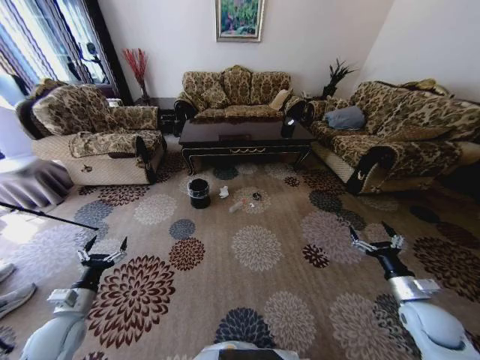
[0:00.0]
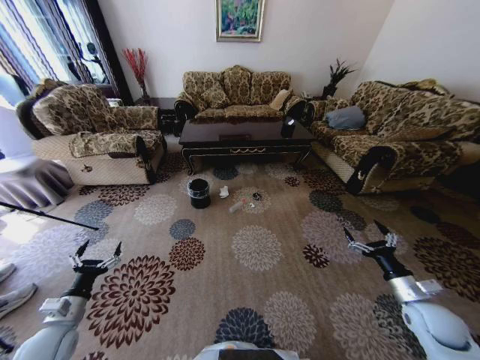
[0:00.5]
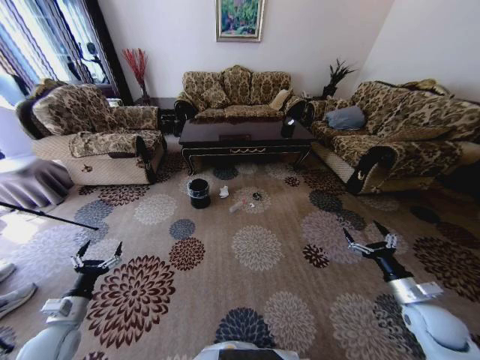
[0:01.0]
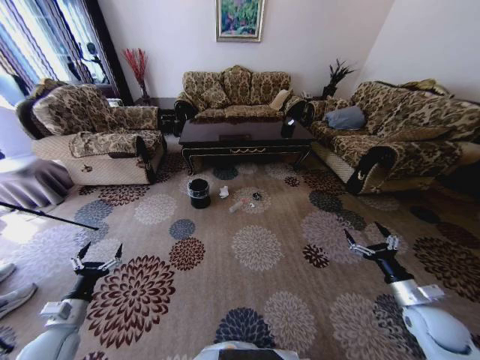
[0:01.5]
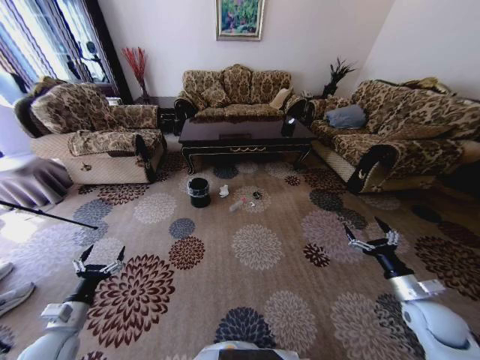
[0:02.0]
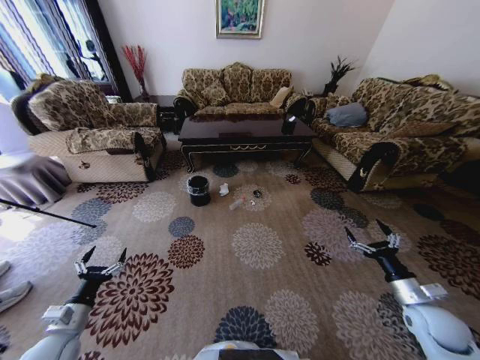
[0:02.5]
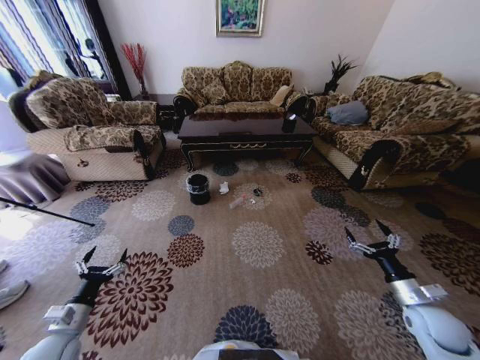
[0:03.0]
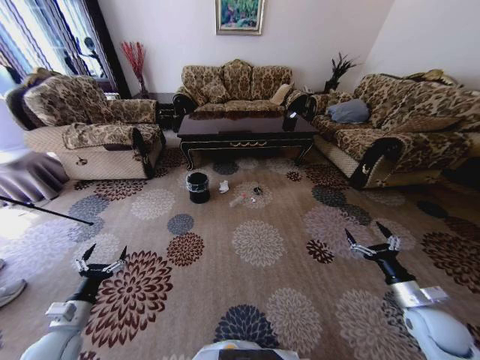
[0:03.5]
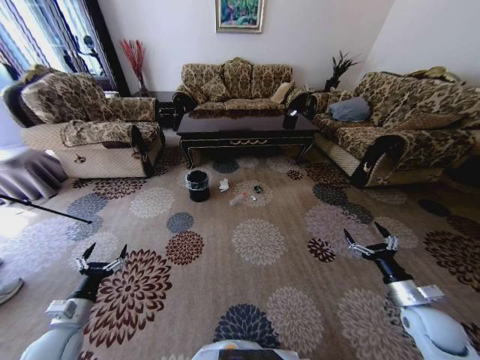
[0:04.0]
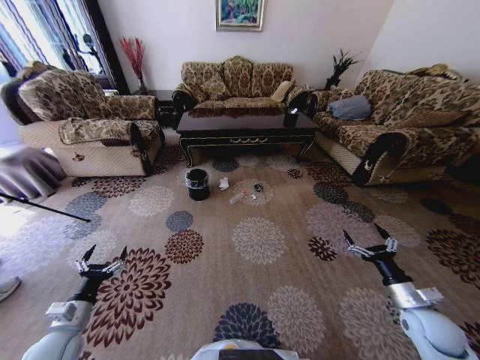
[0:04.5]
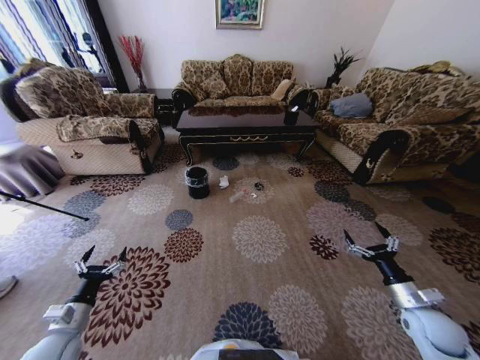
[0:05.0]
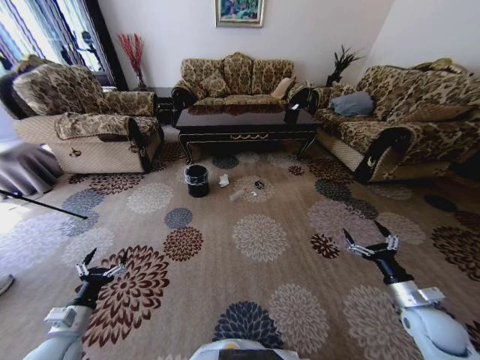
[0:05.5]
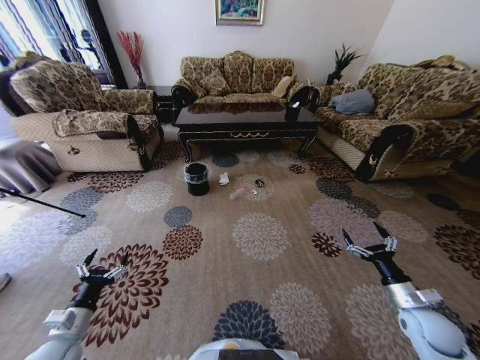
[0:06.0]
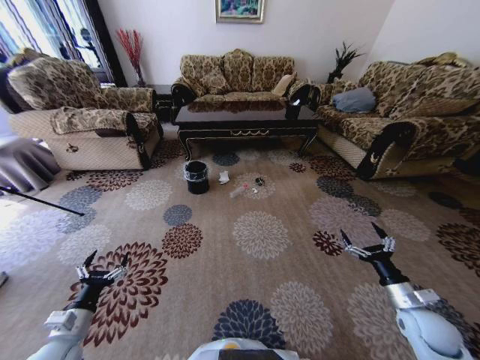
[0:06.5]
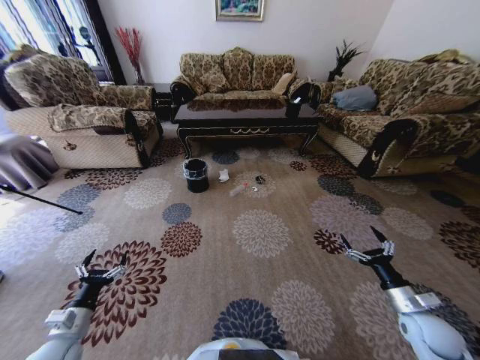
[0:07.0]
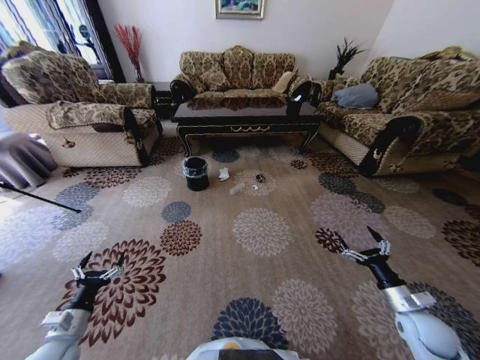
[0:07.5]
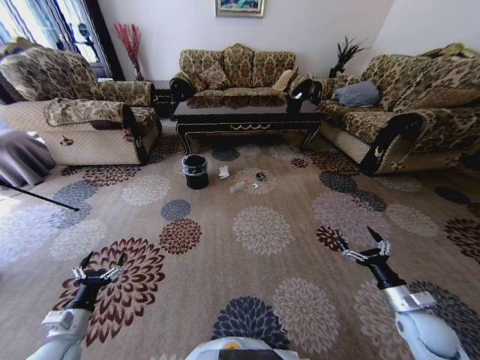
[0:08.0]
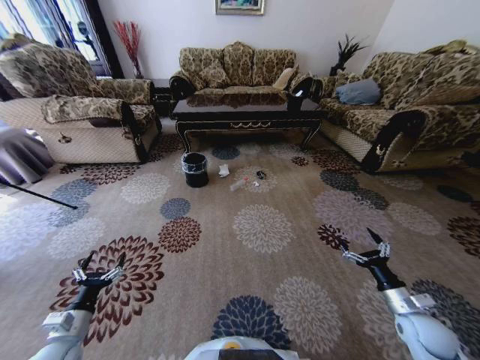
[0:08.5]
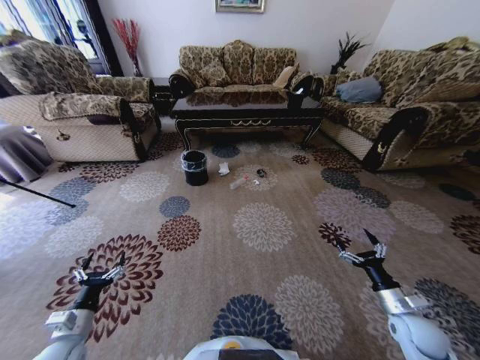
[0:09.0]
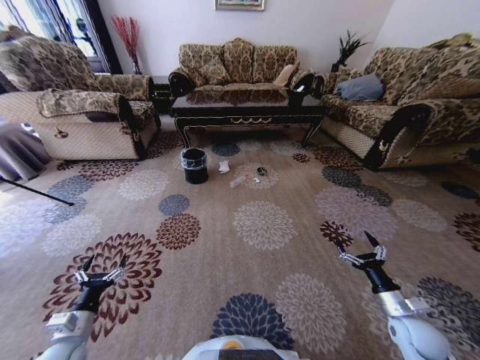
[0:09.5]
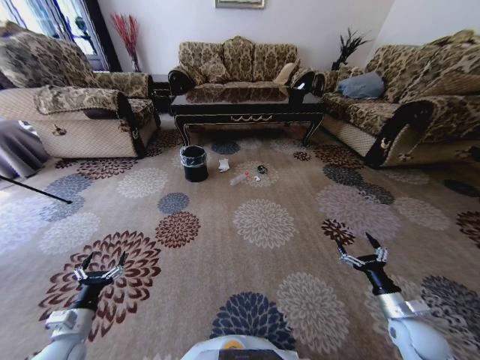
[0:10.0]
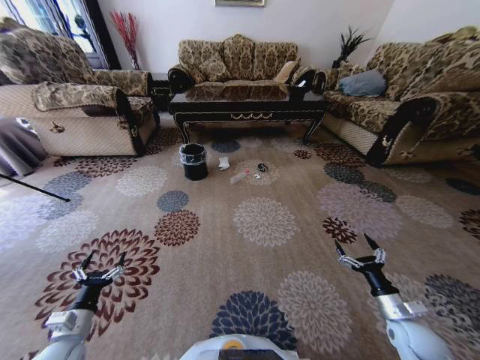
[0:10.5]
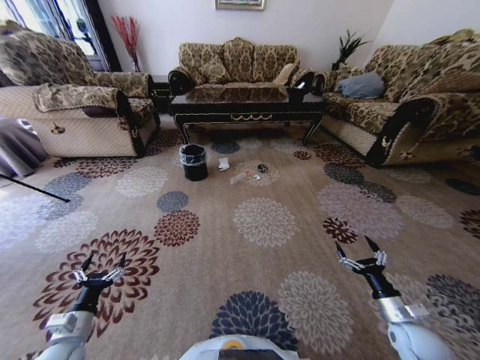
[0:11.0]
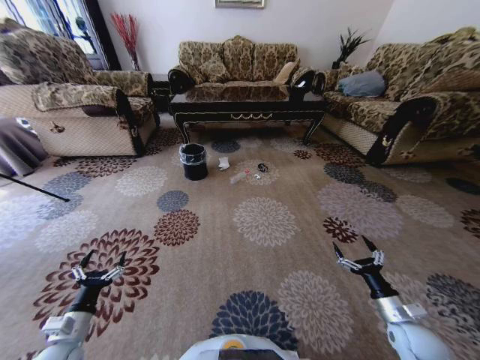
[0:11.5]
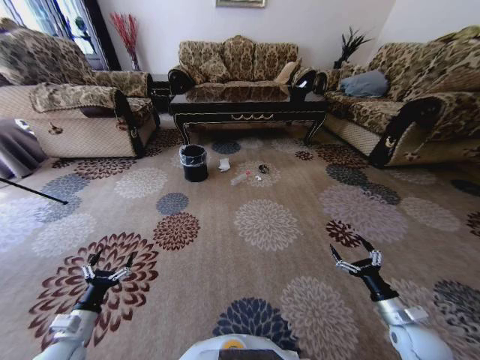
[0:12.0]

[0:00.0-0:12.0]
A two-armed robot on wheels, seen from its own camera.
Task of the whole recording: Move to the front of the table and pick up the trash from the floor, then place it into the trash bin.
0:10.0 to 0:12.0: There are only small adjustments of the grippers.

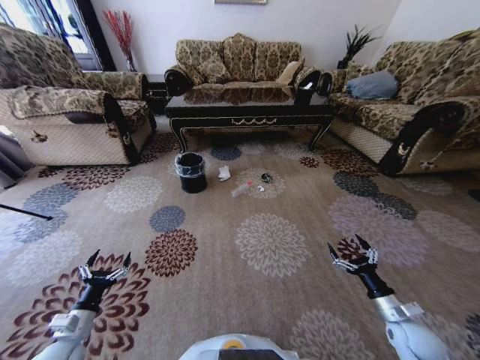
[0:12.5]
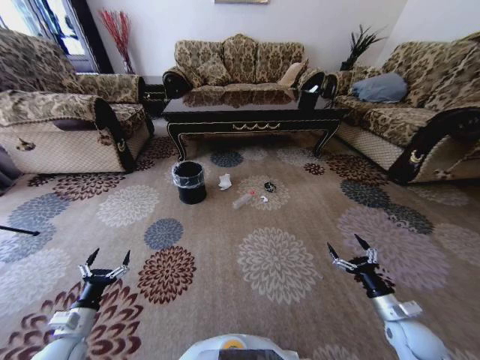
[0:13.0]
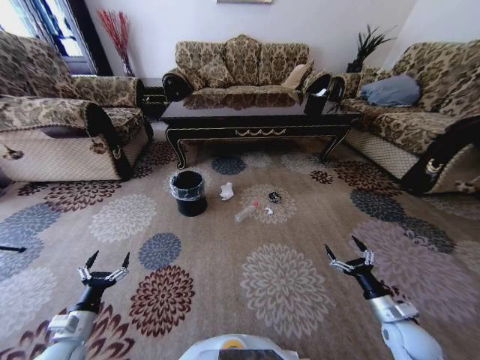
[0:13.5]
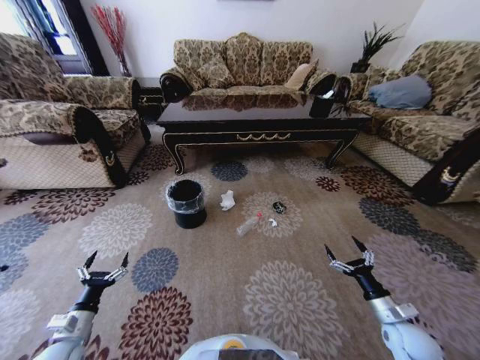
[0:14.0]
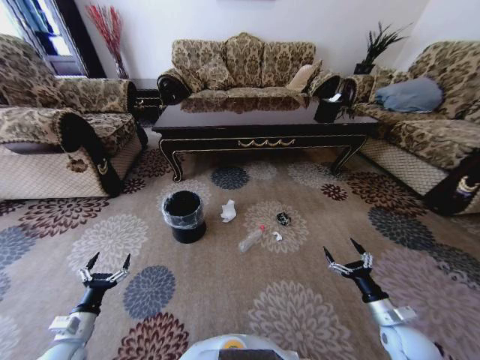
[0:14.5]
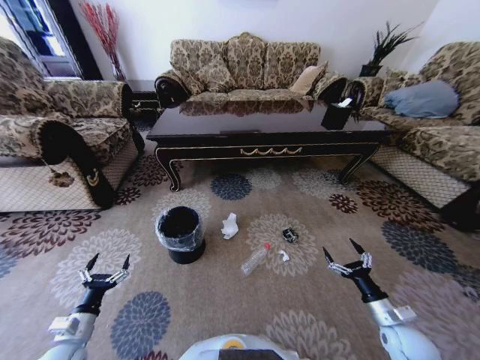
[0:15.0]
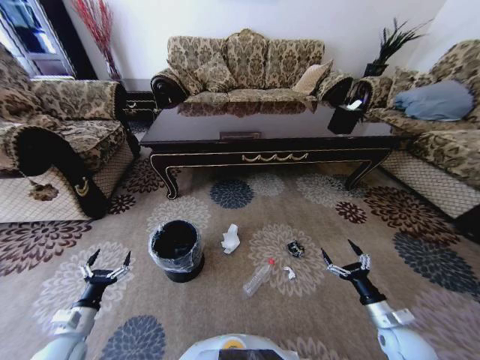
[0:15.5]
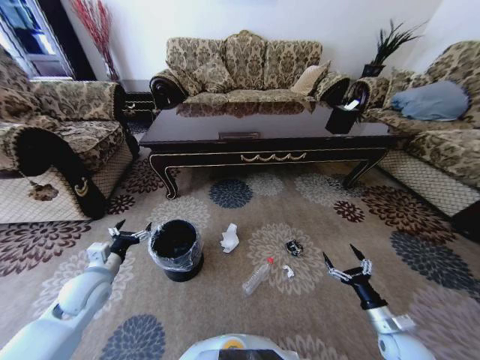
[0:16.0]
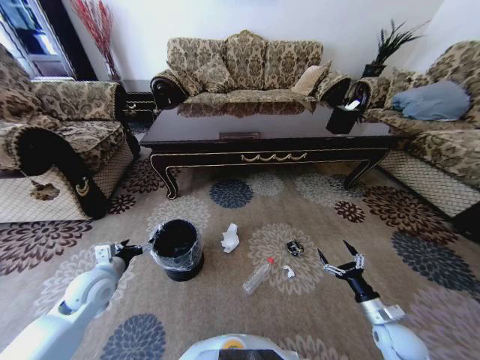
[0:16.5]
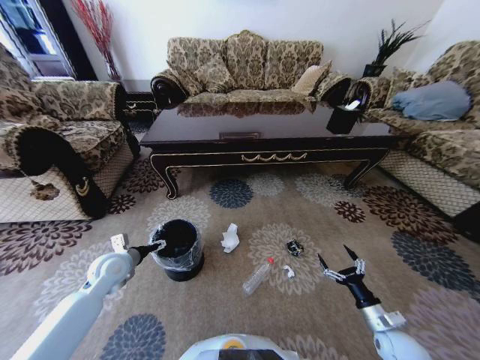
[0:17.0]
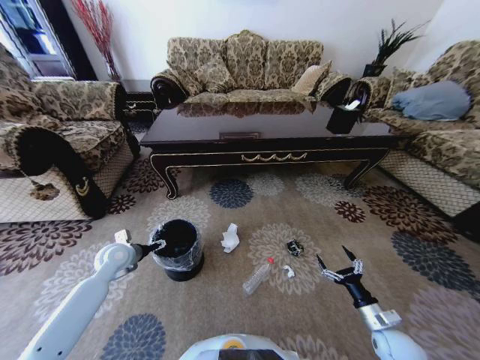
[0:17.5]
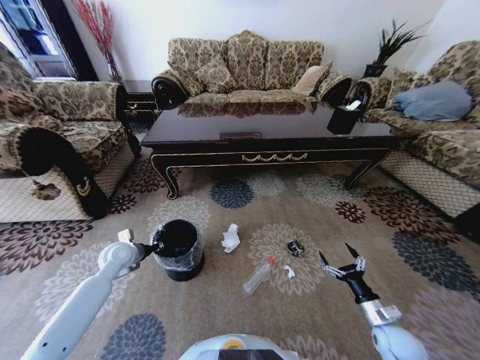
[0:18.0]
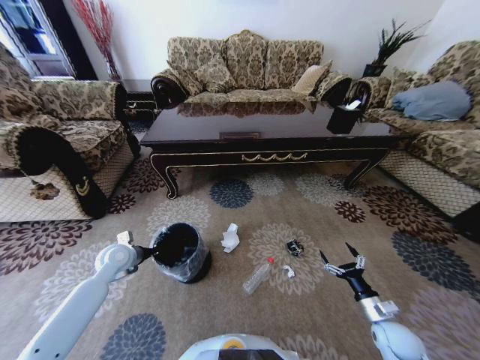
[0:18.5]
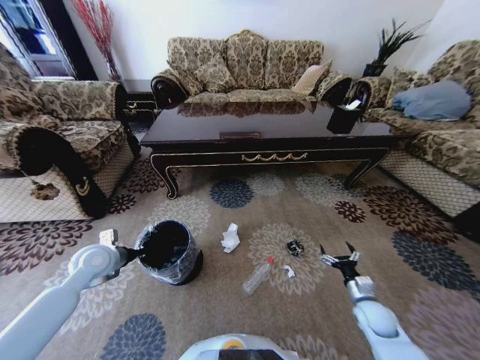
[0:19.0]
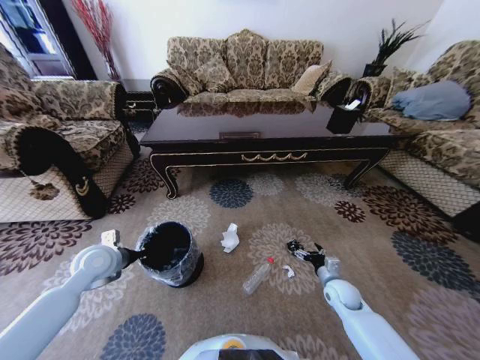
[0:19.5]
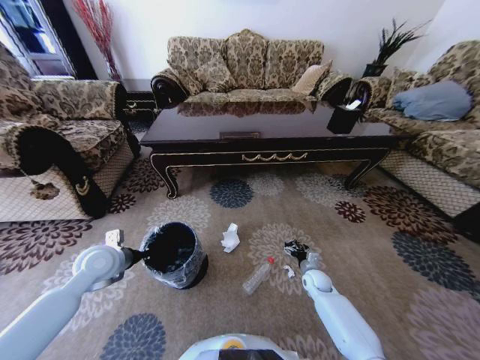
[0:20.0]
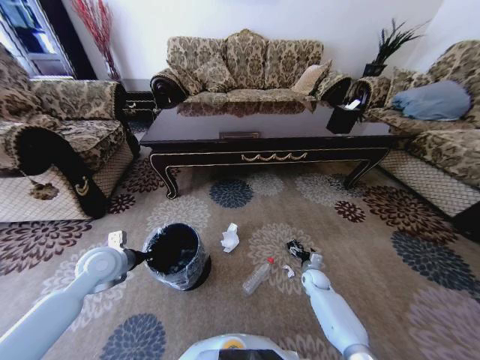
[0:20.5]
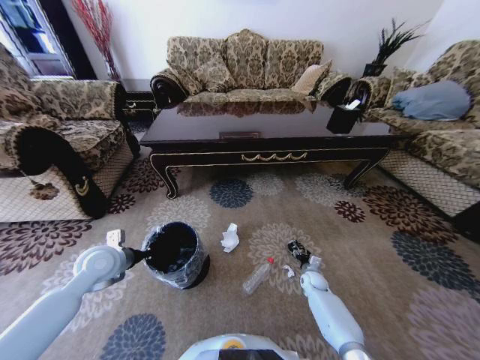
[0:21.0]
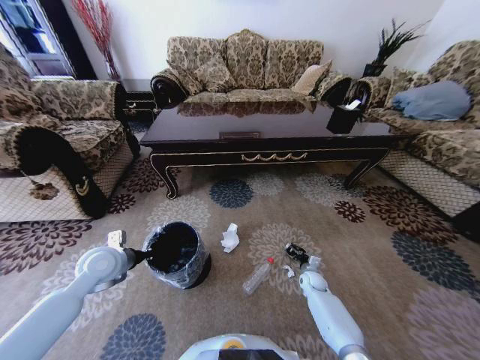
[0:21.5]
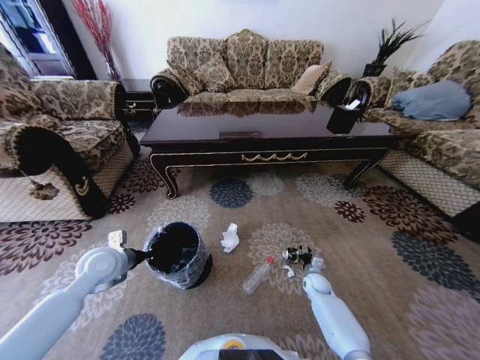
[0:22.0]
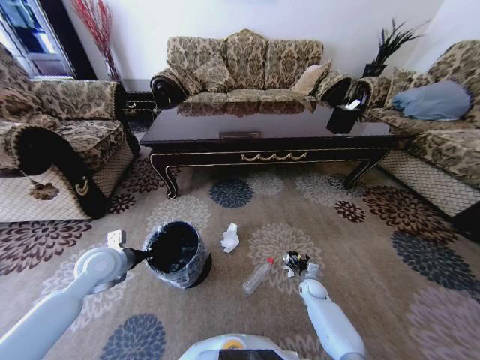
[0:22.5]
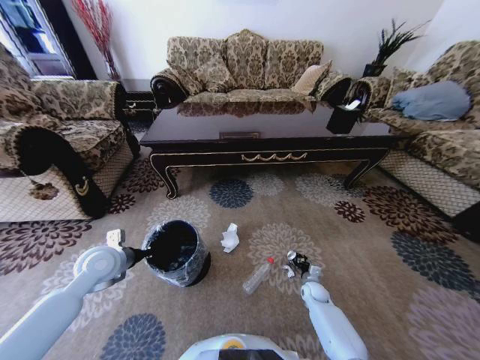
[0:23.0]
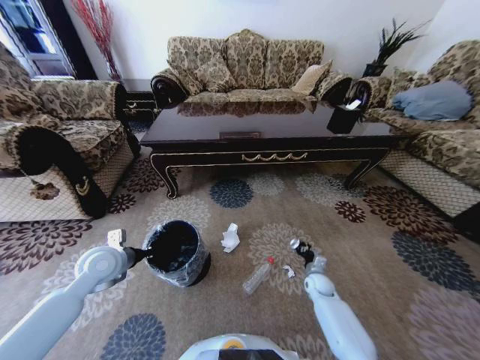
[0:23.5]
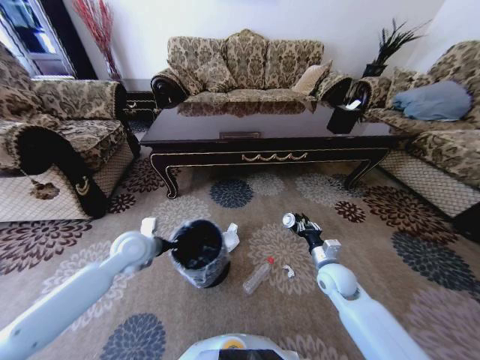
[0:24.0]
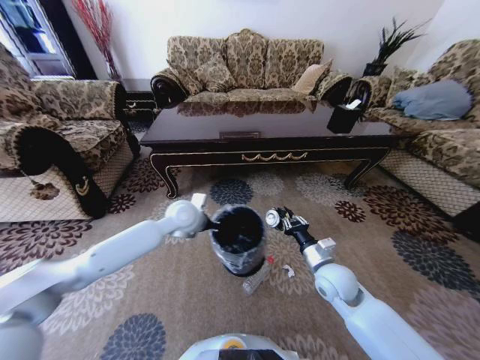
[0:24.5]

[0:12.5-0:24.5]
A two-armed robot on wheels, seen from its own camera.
Task of the whole recording: Move to the front of the table and pick up the trash from the floor, then place it into the trash bin.
0:14.5 to 0:16.5: The left gripper travels forward and upward by approximately 15 cm.
0:16.5 to 0:18.5: The left gripper shifts about 10 cm forward, and closes.
0:18.5 to 0:20.5: The right gripper goes some 25 cm forward, downward and to the left. The left gripper moves upward and backward, about 10 cm.
0:20.5 to 0:22.5: The right gripper closes, then reopens.
0:22.5 to 0:24.5: The left gripper travels to the right and forward by approximately 25 cm. Meanwhile the right gripper travels upward by roughly 25 cm, and closes up.

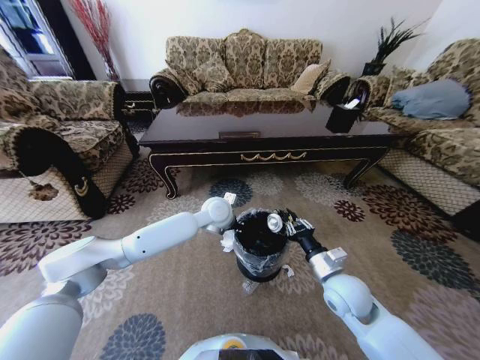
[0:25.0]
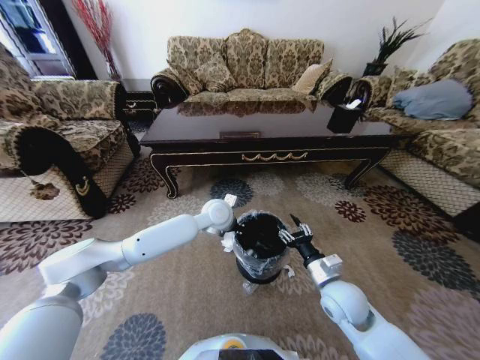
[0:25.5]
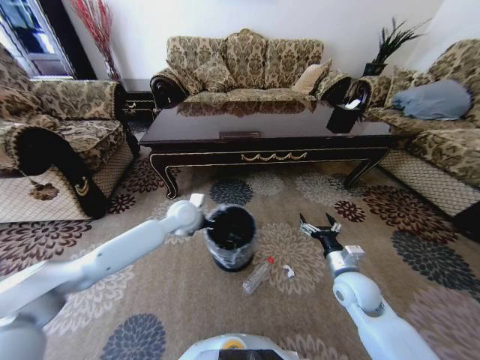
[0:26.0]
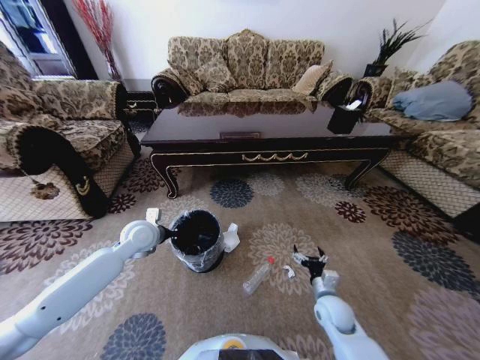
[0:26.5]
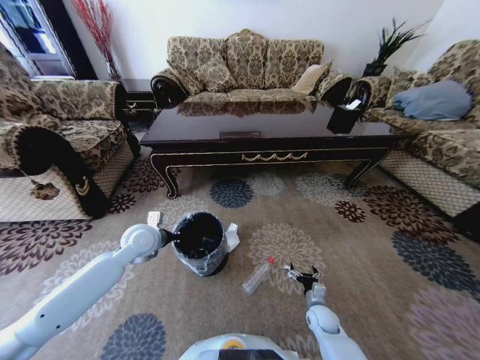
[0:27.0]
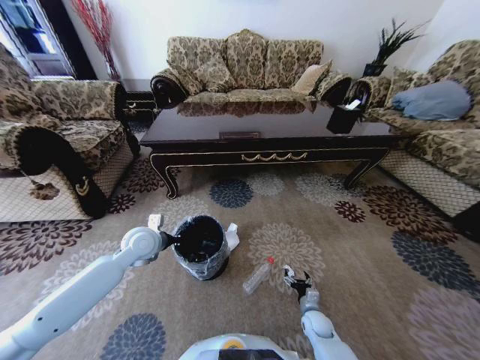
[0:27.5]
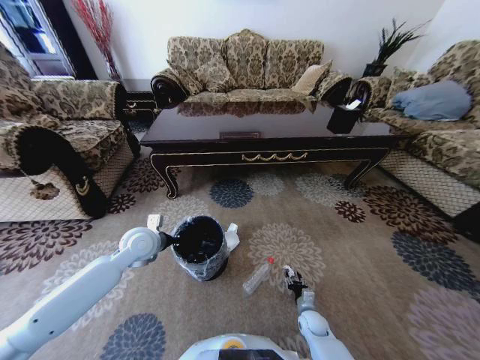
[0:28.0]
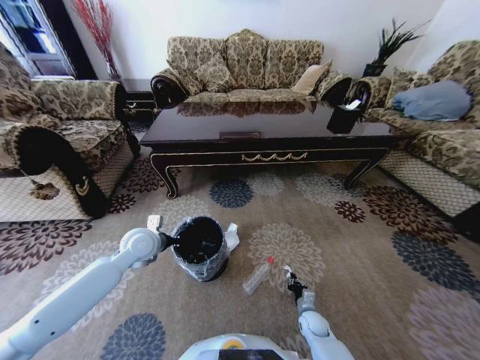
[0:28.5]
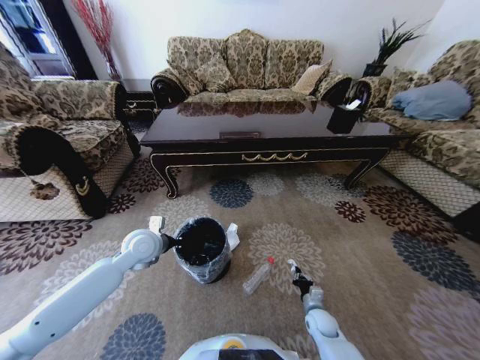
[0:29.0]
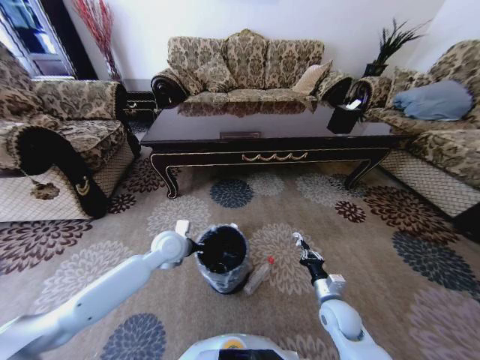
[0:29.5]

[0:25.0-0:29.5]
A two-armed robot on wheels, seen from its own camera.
Task of the whole recording: Move to the front of the table and pick up the trash from the floor, then place it into the trash bin.
0:25.0 to 0:27.0: The left gripper goes about 20 cm to the left, while the right gripper is displaced downward by approximately 25 cm, and opens up.
0:27.0 to 0:29.5: The left gripper moves to the right, roughly 5 cm; the right gripper is displaced upward by roughly 15 cm, and closes up.
